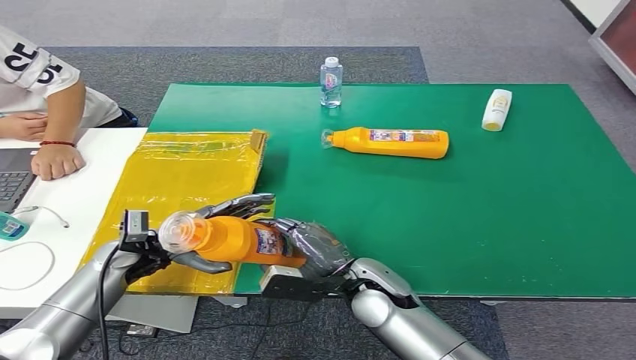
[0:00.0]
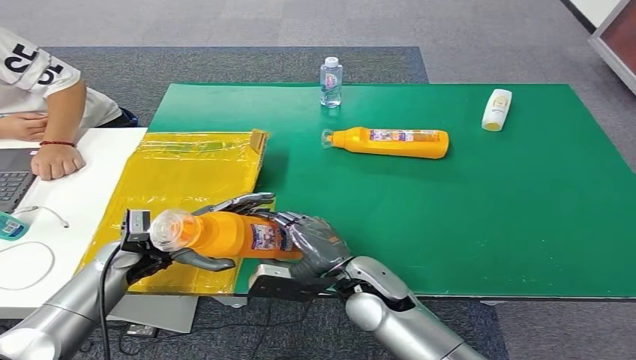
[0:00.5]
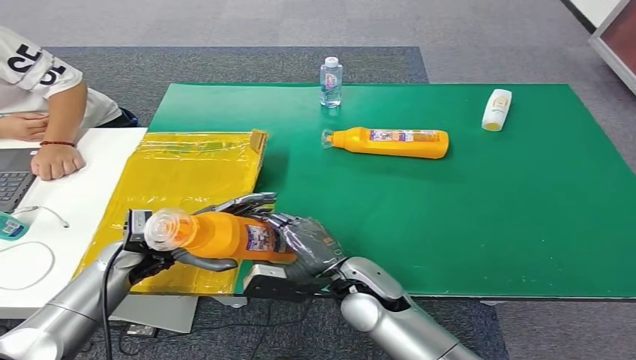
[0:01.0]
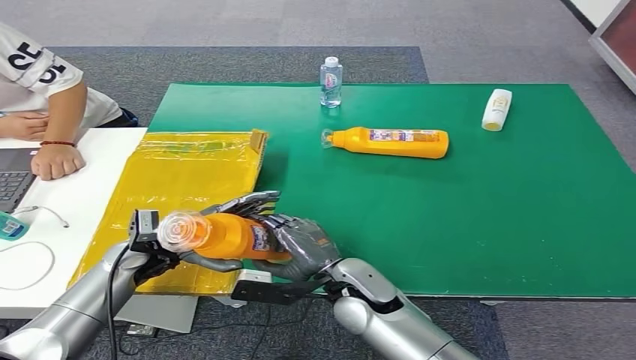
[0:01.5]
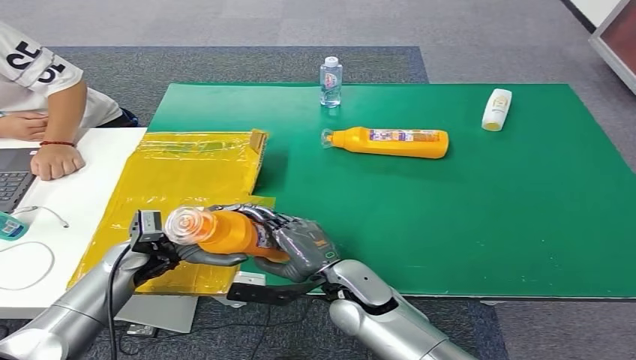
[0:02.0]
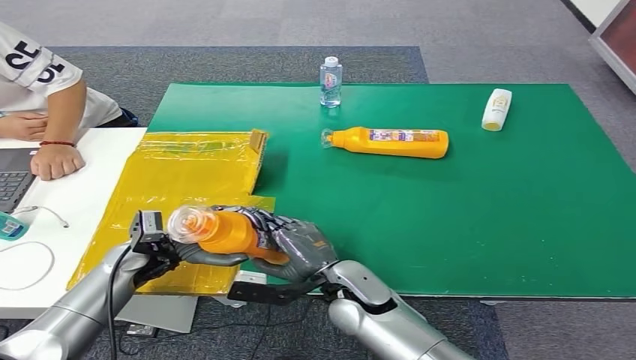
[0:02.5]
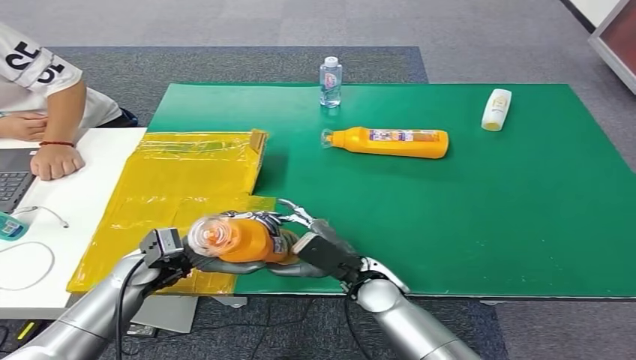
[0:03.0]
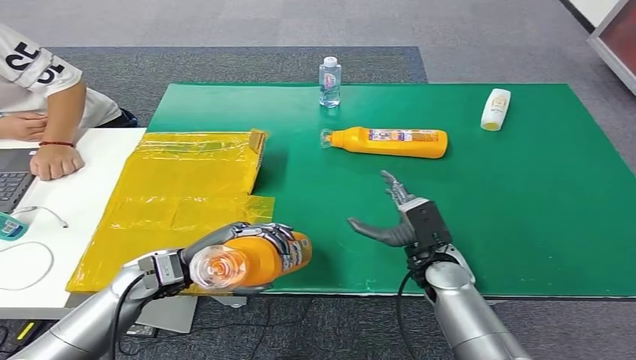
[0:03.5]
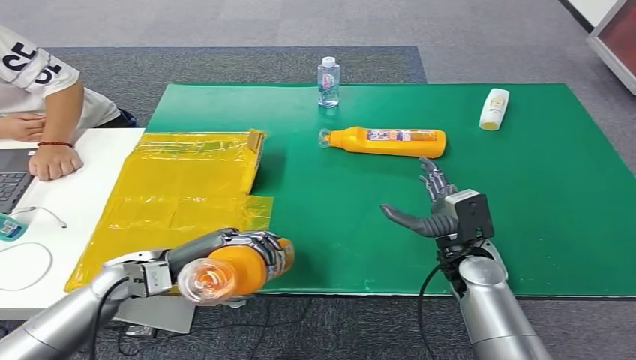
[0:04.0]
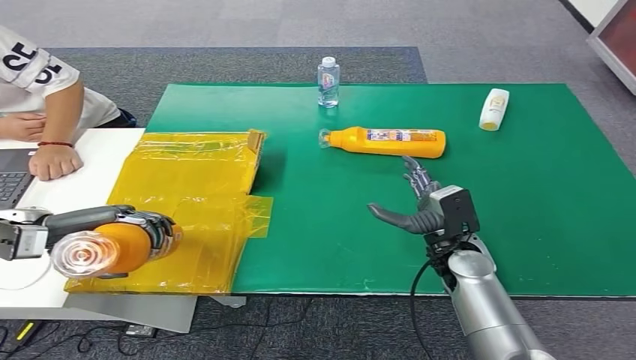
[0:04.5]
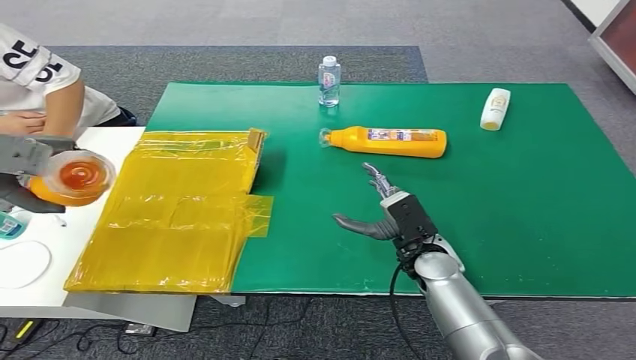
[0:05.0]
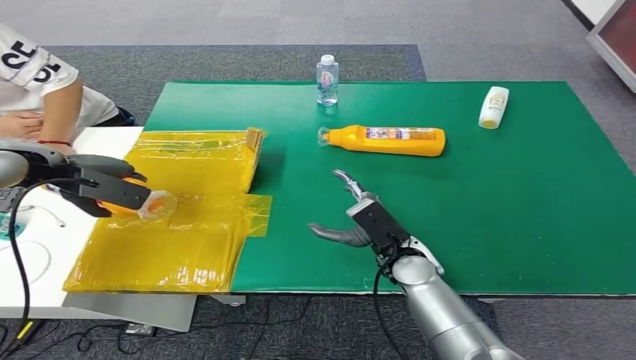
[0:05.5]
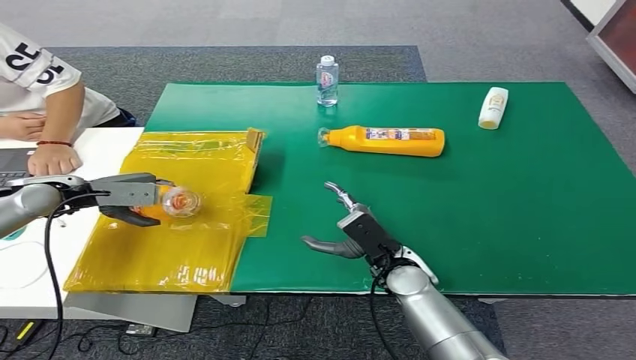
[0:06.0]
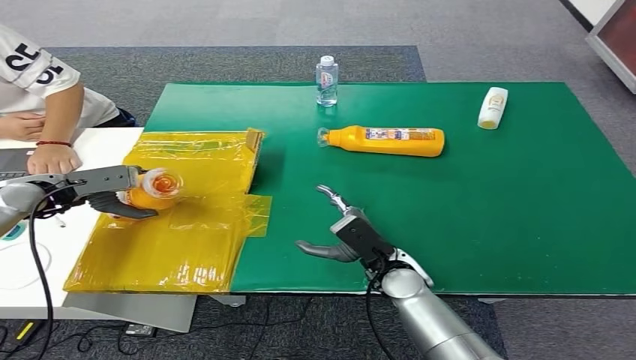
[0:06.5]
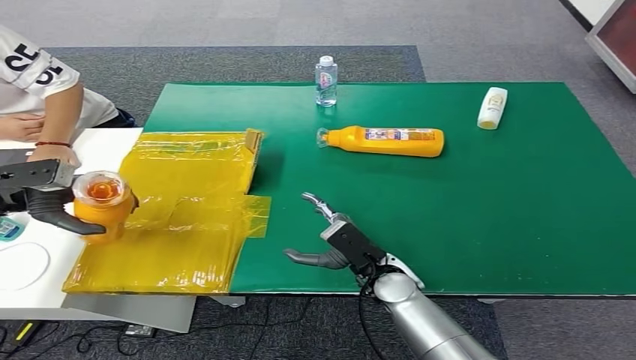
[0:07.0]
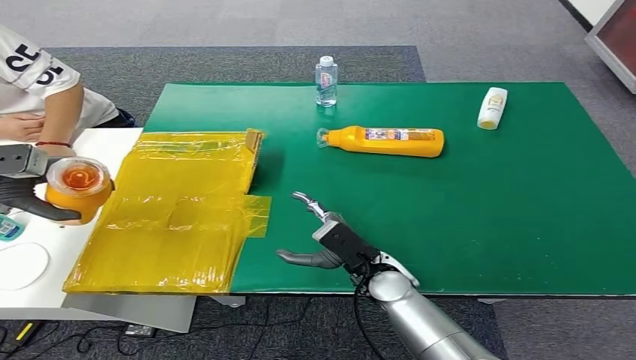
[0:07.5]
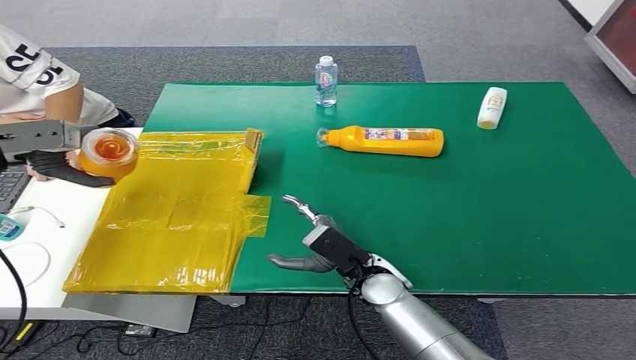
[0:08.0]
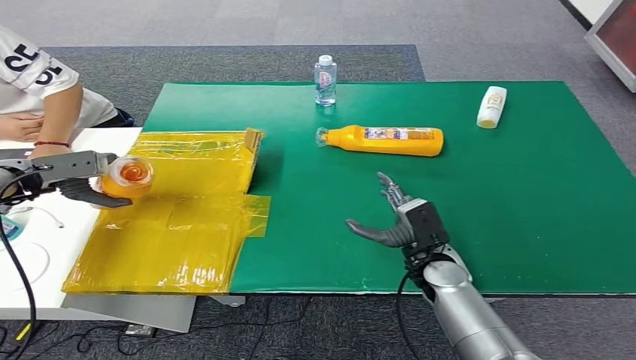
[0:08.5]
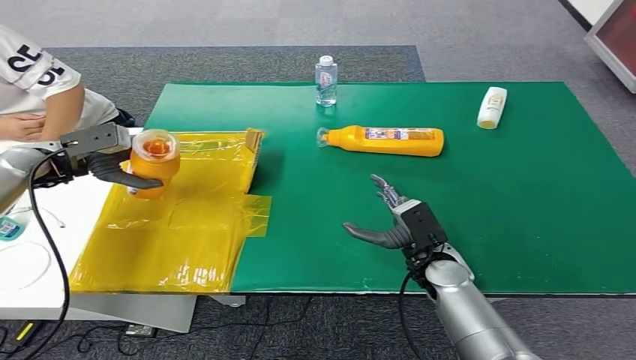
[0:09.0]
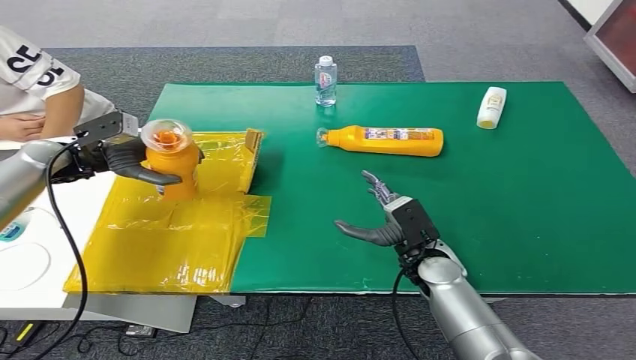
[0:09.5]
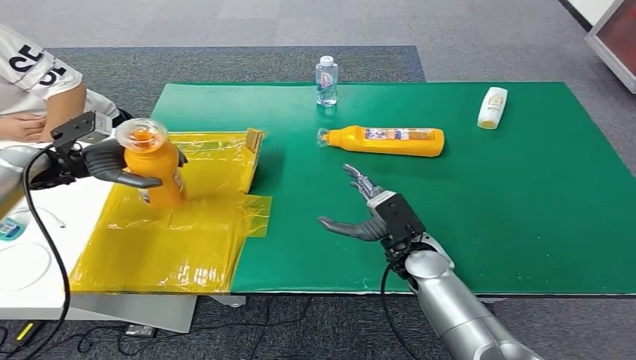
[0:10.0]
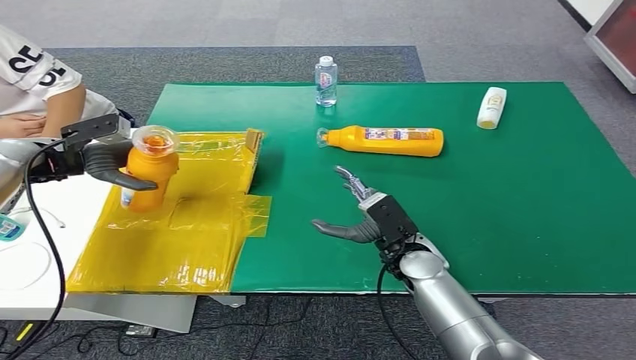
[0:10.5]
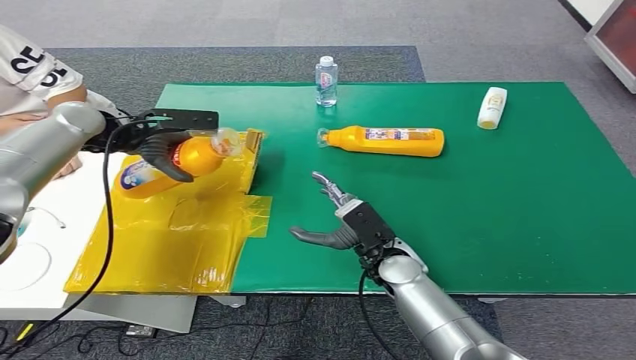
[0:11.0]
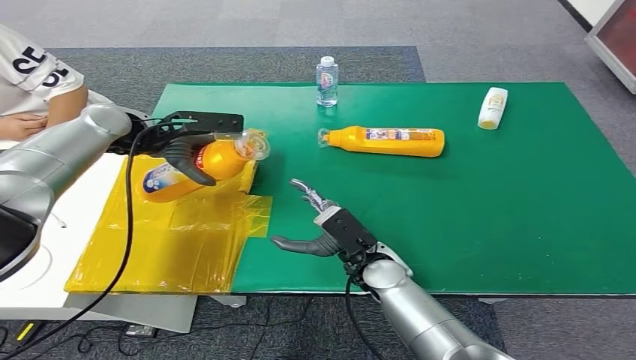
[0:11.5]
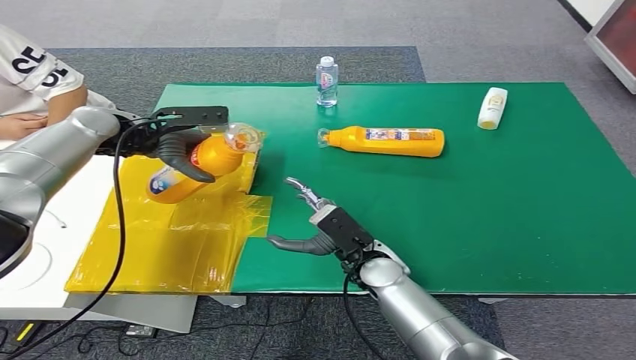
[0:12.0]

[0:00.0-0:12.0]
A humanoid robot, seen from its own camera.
0:00.0 to 0:02.0: The hands move only a little.
0:02.0 to 0:04.0: The right hand moves to the right, approximately 15 cm.
0:06.0 to 0:08.0: The left hand heads upward, covering about 10 cm.
0:08.0 to 0:10.0: The left hand heads downward, covering roughly 5 cm. Meanwhile the right hand is displaced to the right by approximately 5 cm.

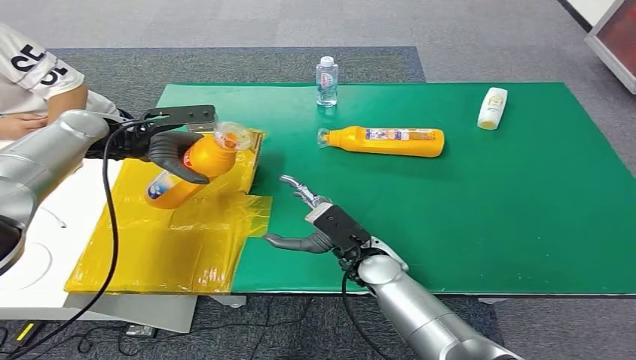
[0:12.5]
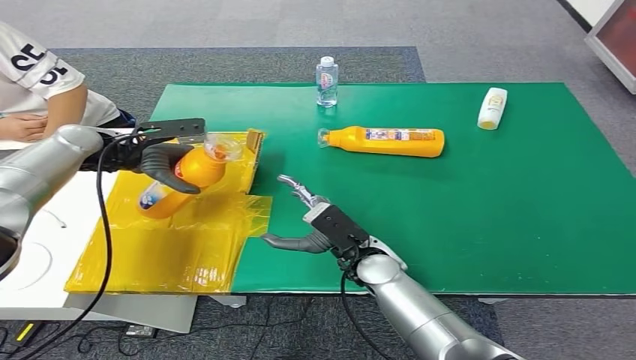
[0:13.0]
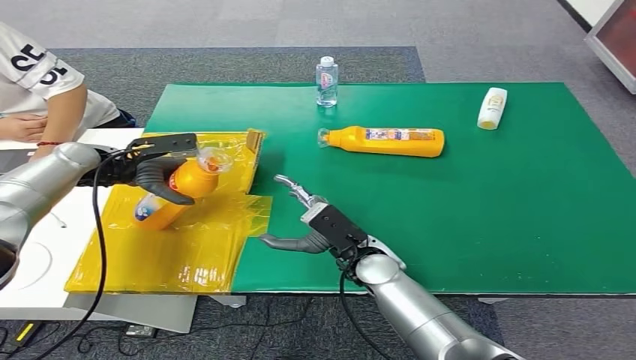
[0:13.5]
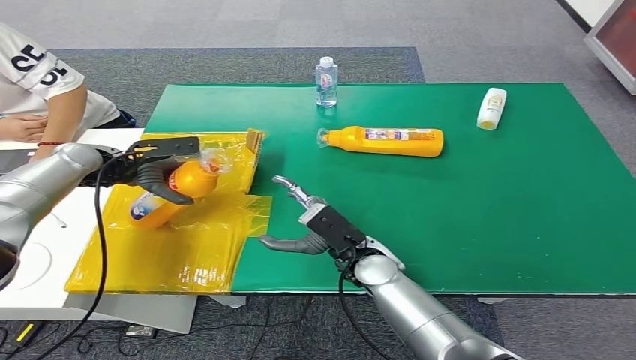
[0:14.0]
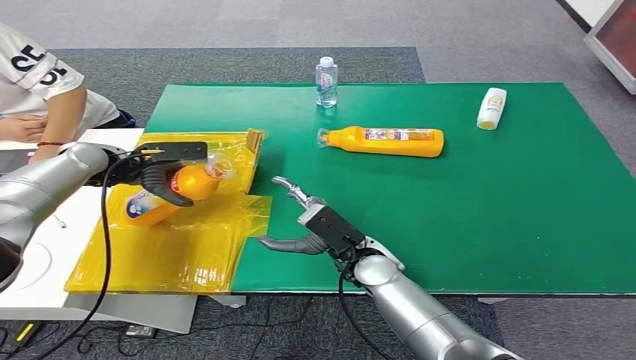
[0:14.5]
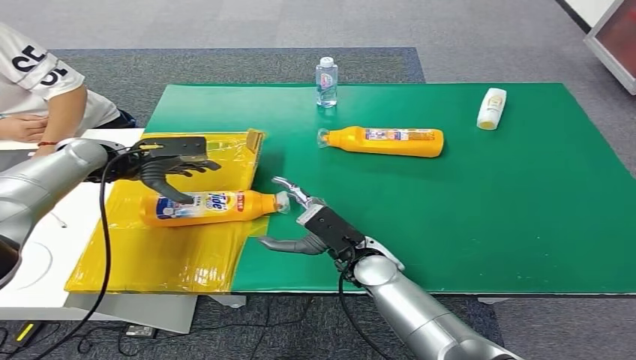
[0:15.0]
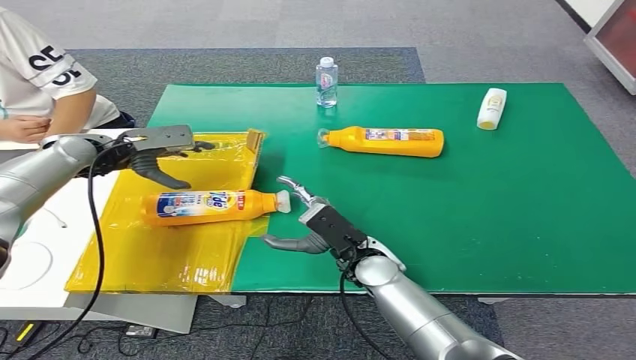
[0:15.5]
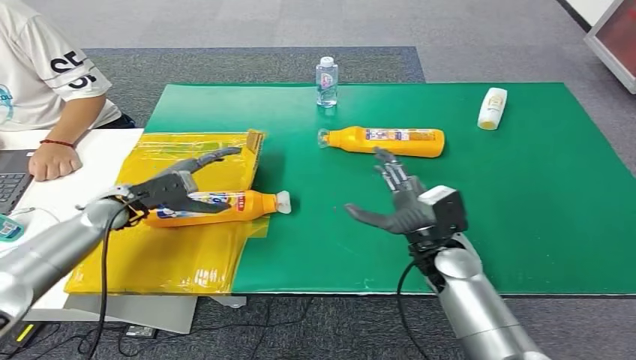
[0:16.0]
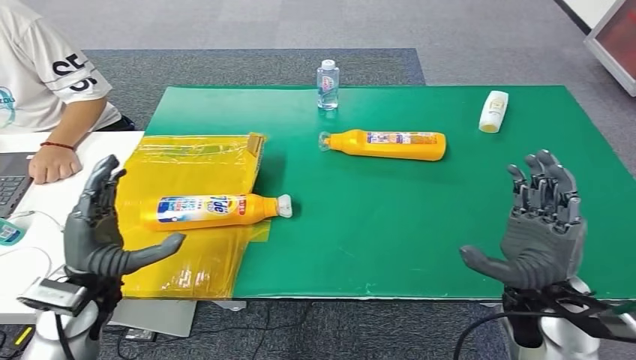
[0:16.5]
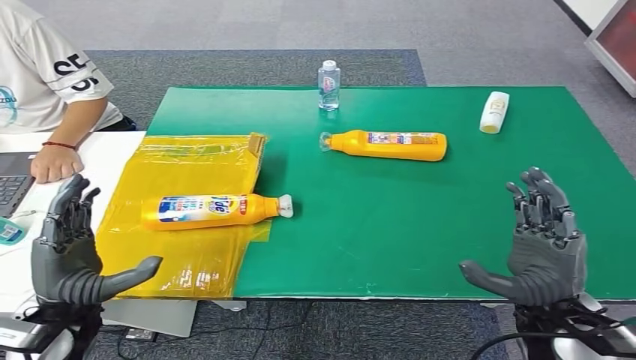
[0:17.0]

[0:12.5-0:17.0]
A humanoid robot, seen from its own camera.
Step, 0:12.5 to 0:17.0: Turn the bottle to the front side.
0:12.5 to 0:14.5: The left hand heads downward, covering some 5 cm.
